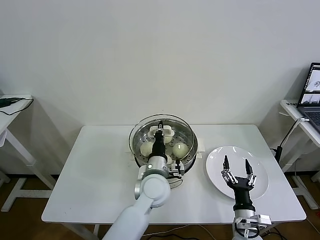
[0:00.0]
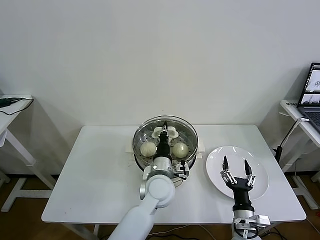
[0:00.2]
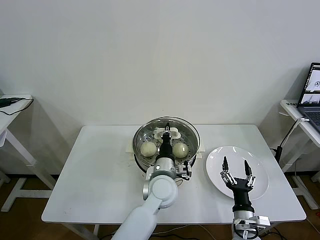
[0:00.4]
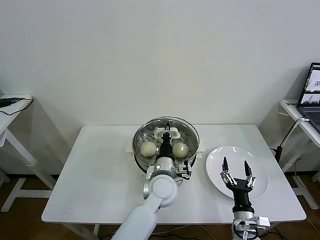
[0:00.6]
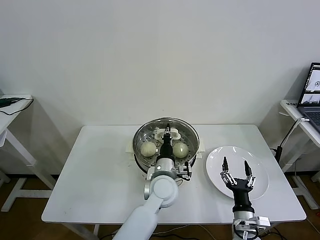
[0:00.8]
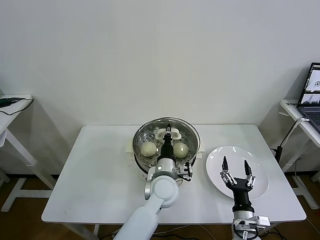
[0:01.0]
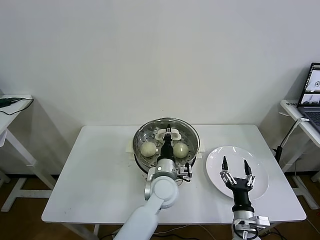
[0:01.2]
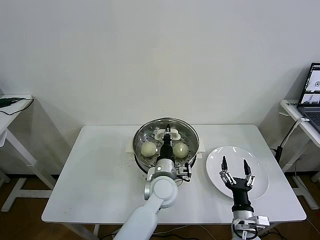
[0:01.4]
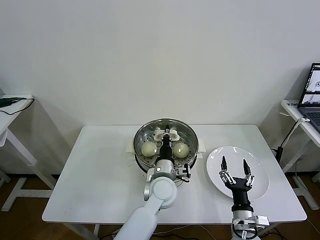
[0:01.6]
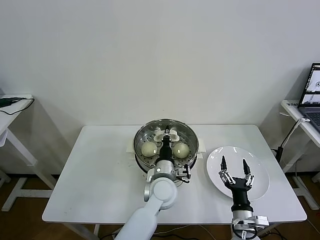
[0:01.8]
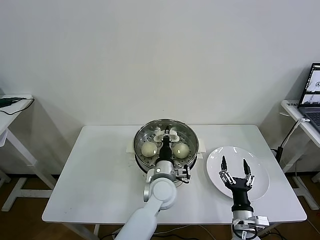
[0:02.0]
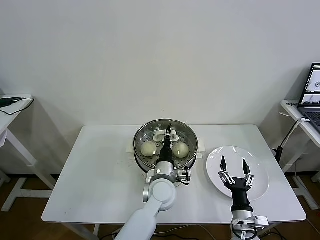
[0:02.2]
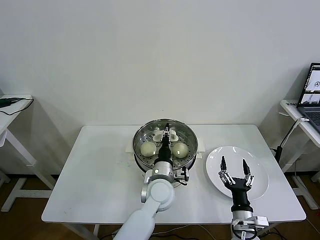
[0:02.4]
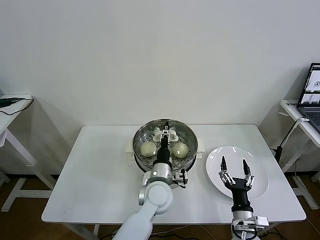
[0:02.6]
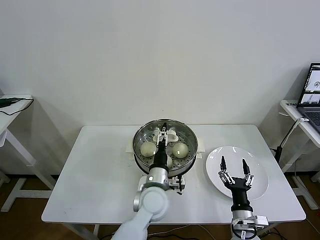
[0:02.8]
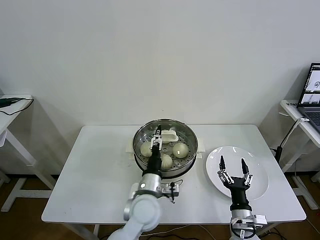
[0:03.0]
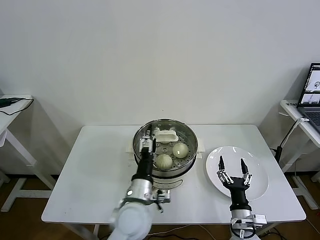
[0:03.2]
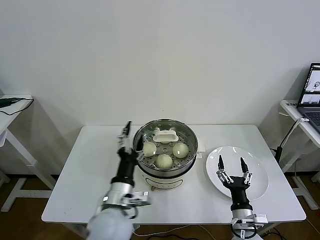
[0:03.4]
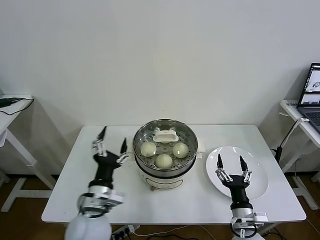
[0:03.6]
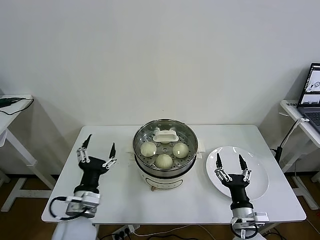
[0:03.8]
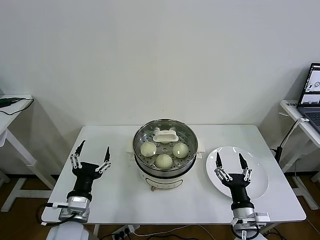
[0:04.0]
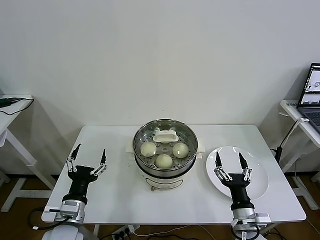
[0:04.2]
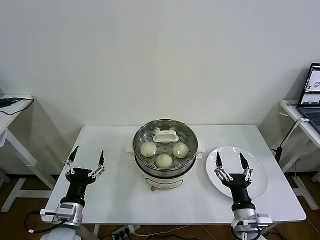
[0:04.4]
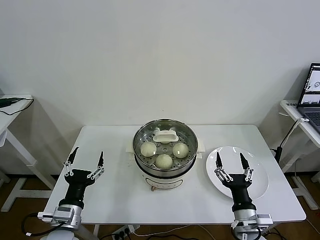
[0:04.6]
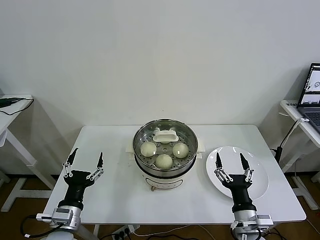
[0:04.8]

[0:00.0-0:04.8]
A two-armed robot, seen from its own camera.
Task of the whole recording: take steamed baozi put them in steamer then cover it.
Step, 0:00.0 to 0:03.0: Place the pot lid on the steamer with left gripper.
0:00.0 to 0:01.6: The grippers stay close to where they were, moving slightly.
0:01.6 to 0:03.2: The left gripper travels backward and to the left by about 10 cm, and opens its fingers.
0:03.2 to 0:04.8: The right gripper is displaced upward by about 5 cm, while the left gripper is displaced to the left by approximately 20 cm.
